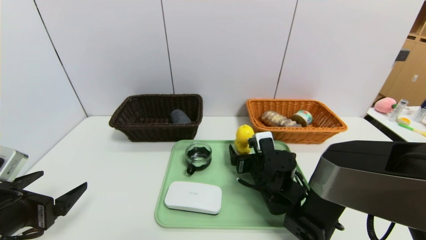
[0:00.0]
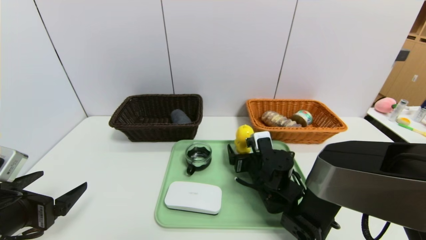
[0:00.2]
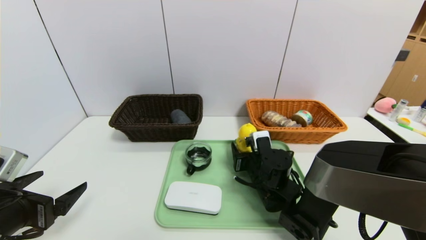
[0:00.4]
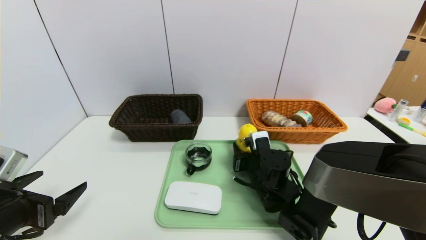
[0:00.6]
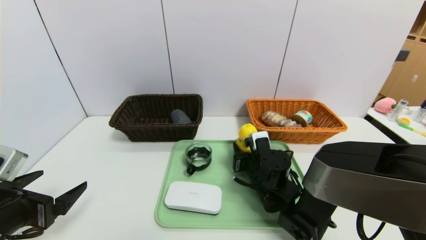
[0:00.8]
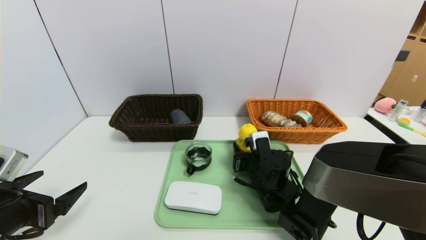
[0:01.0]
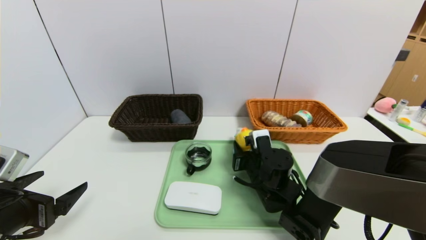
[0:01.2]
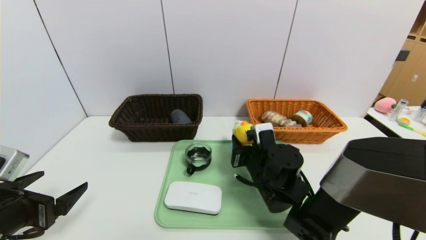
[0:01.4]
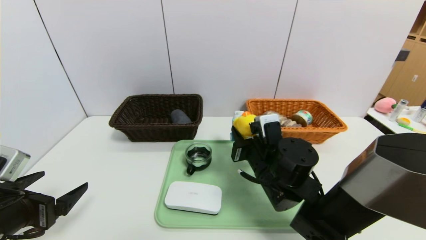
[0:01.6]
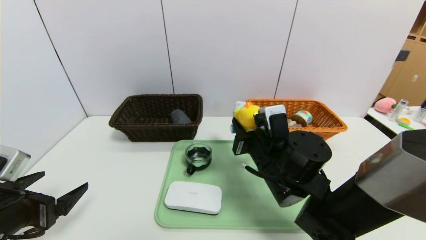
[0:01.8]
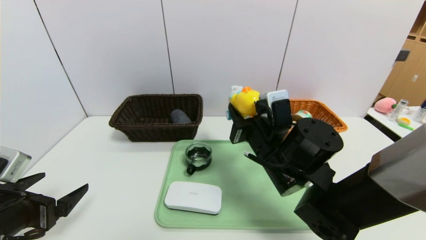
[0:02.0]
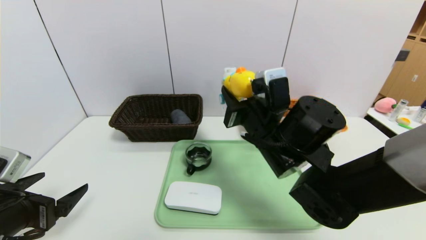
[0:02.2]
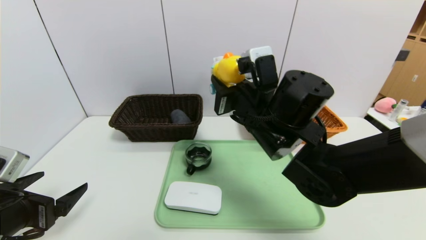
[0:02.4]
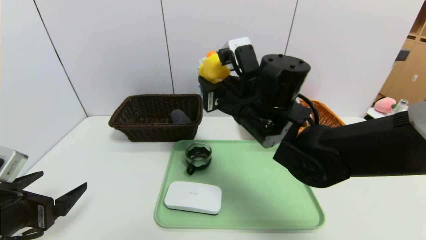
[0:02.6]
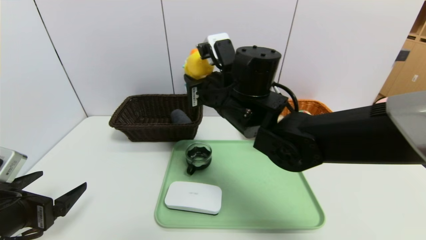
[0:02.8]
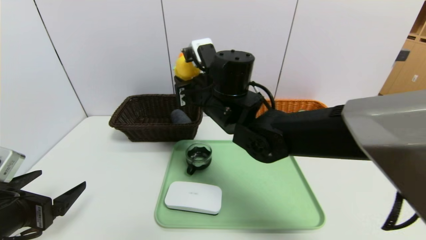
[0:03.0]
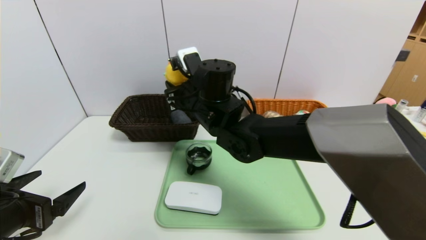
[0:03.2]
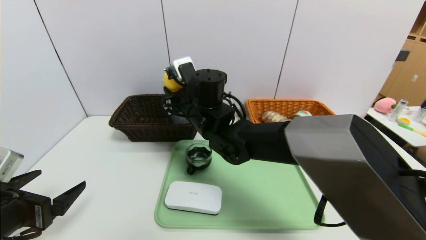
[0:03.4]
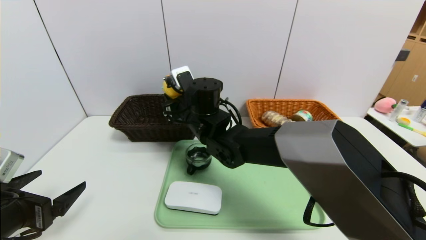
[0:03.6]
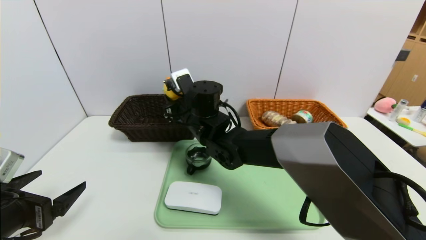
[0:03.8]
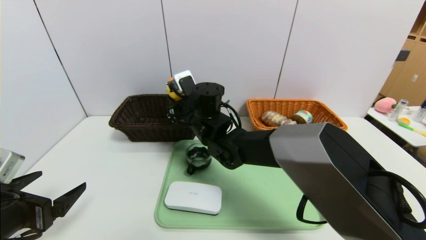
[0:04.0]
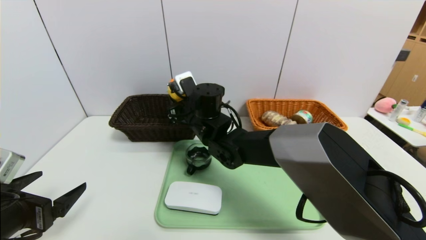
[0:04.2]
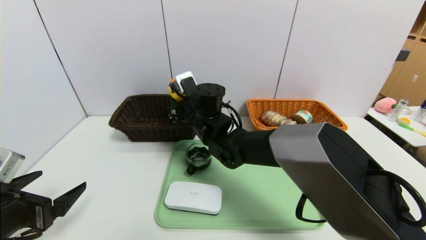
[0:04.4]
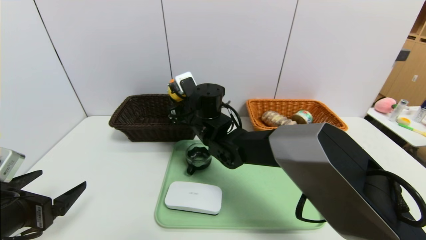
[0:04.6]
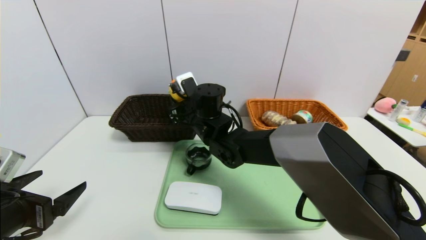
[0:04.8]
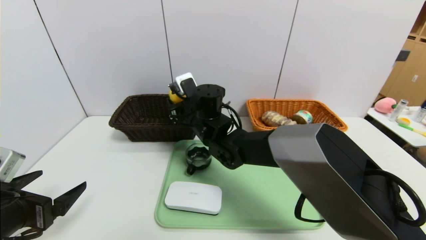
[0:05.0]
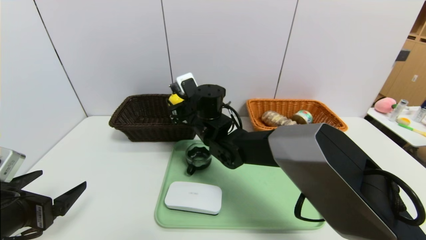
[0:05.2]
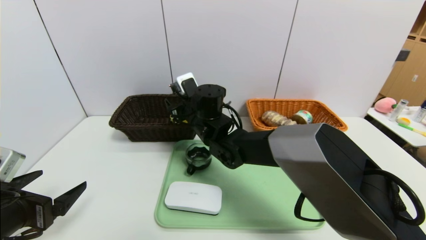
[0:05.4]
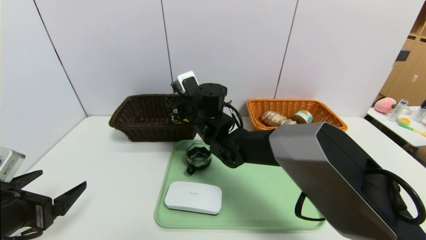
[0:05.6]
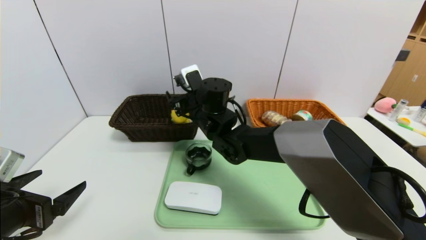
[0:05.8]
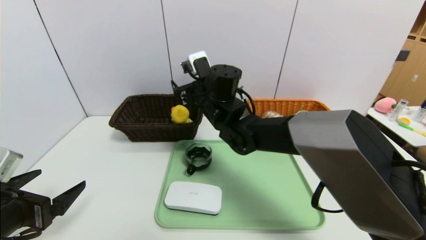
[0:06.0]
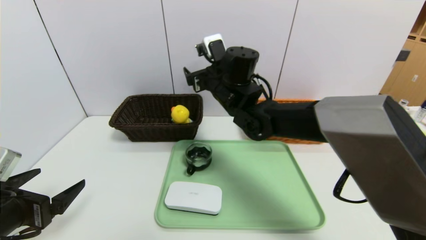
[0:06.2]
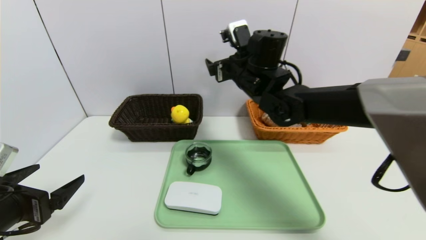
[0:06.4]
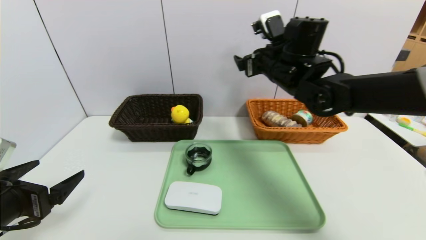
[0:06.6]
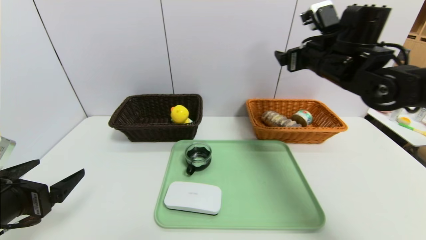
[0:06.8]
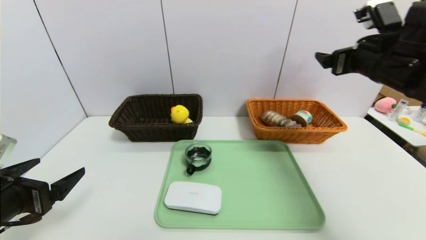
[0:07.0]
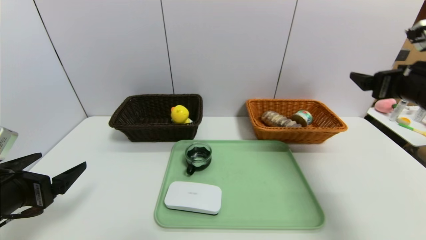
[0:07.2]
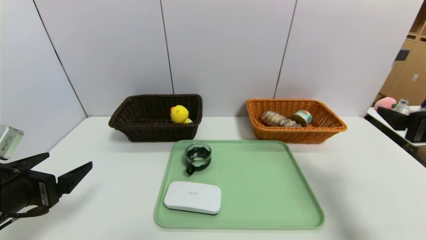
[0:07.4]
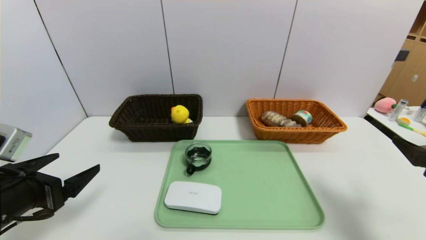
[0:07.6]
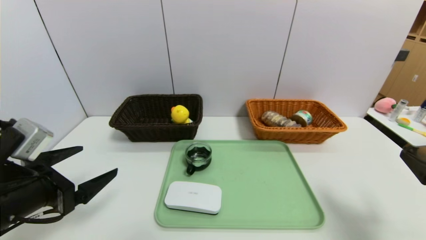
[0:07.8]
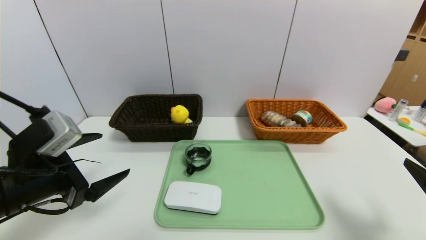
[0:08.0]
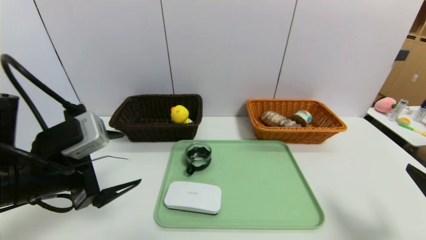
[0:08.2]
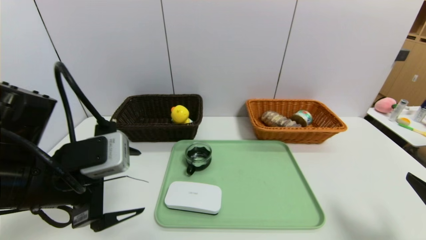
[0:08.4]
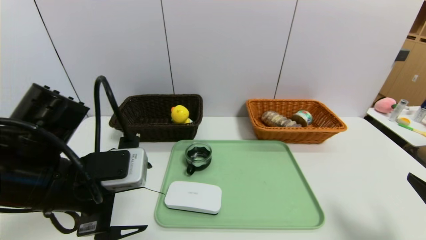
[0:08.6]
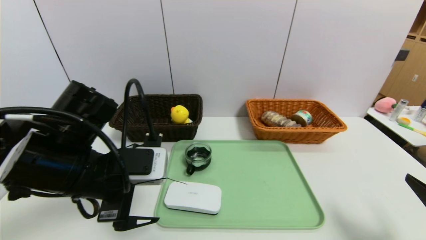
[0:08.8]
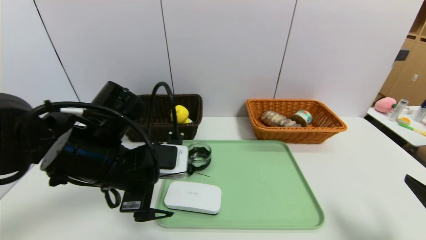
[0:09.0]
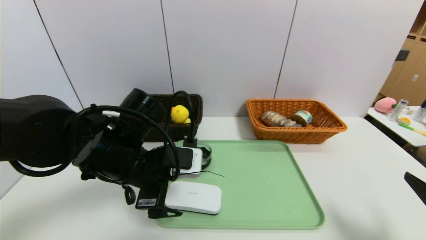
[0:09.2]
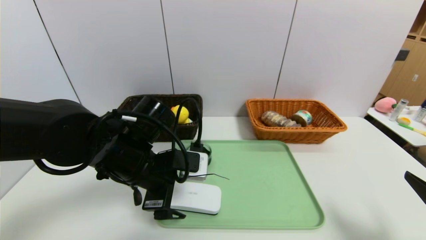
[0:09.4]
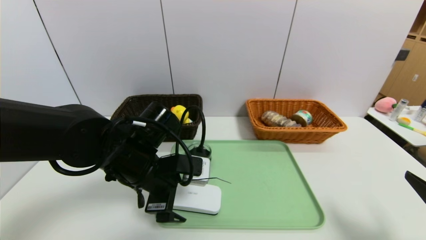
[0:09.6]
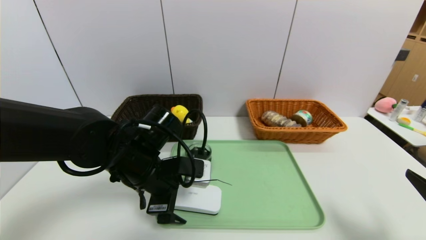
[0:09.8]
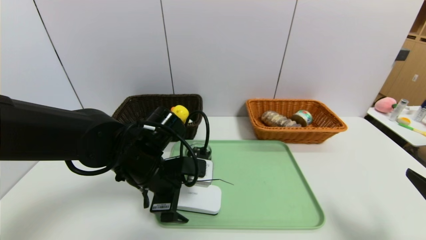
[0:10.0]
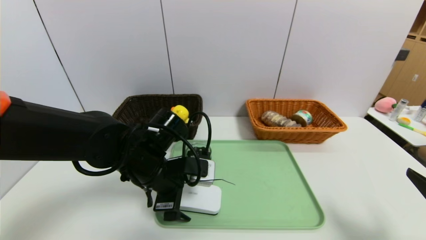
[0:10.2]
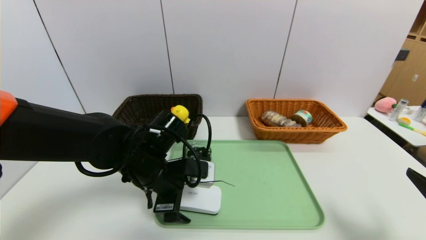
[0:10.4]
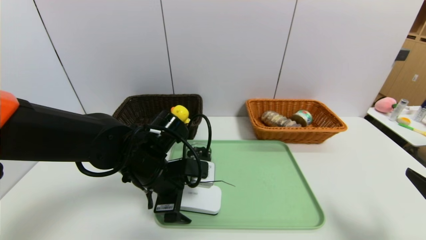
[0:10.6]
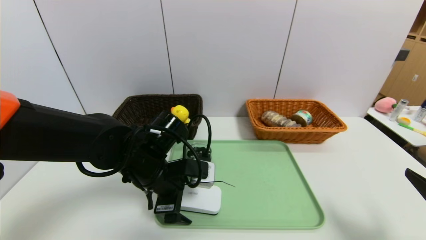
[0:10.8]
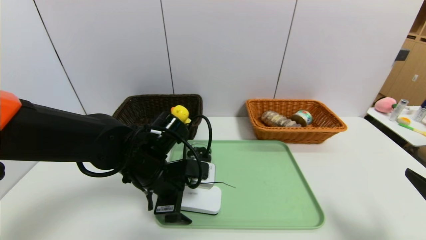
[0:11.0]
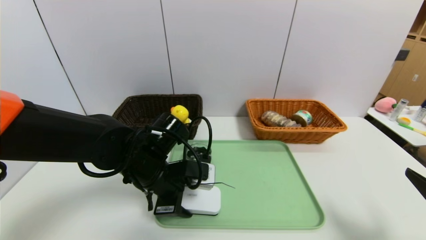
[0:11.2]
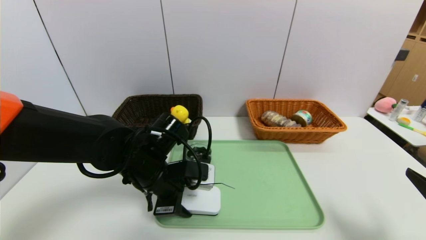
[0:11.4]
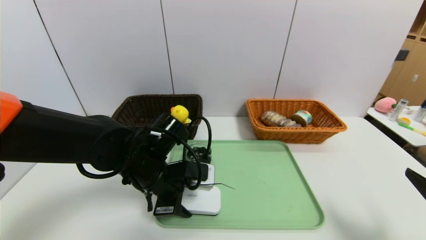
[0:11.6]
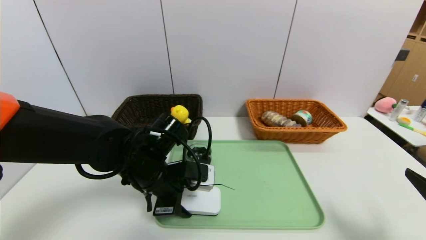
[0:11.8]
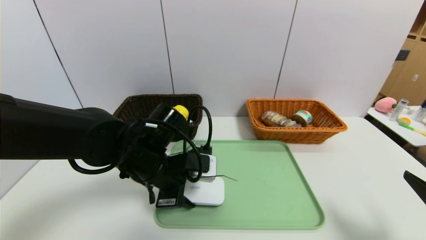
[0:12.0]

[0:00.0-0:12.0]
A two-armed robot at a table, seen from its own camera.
Task of the whole recording: place the food in the right basket with the right gripper, and place the non food items in the left basket with the left gripper.
0.0 to 1.6 s: The right gripper travels upward by approximately 5 cm, and closes its fingers.
1.6 to 3.0 s: The right gripper is displaced upward, to the left and forward by about 15 cm.
3.0 to 4.4 s: The right gripper shifts some 10 cm downward and forward.
4.4 to 6.0 s: The right gripper changes place by about 5 cm, and opens.
6.0 to 7.6 s: The right gripper goes some 40 cm to the right and backward.
7.6 to 9.0 s: The left gripper moves to the right and forward, some 15 cm; the right gripper is displaced backward by roughly 5 cm.
9.0 to 10.4 s: The left gripper is displaced downward by some 5 cm.
10.4 to 12.0 s: The left gripper closes.

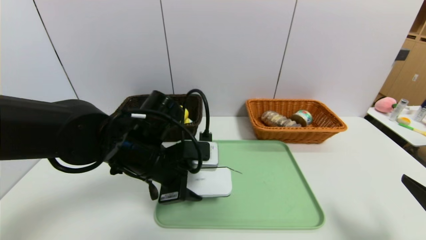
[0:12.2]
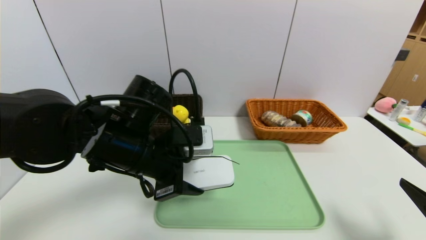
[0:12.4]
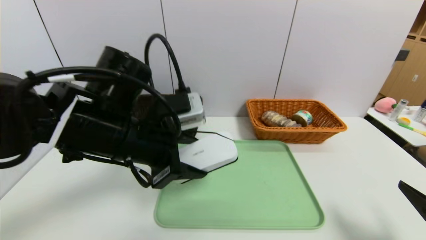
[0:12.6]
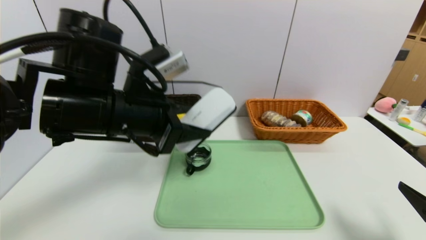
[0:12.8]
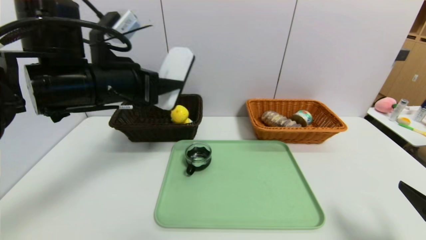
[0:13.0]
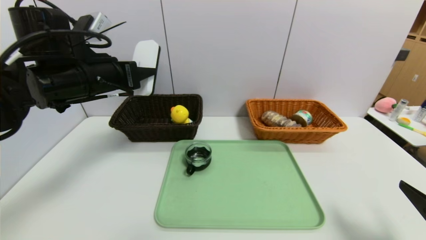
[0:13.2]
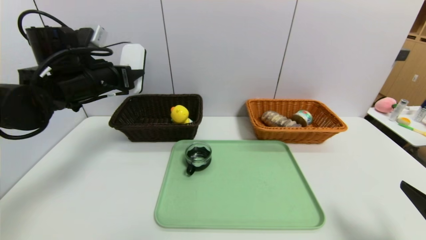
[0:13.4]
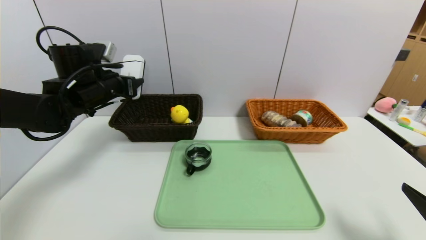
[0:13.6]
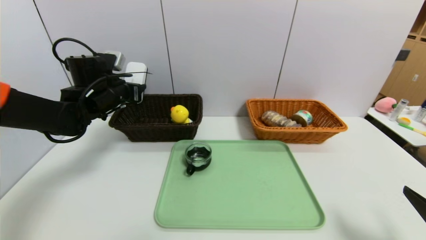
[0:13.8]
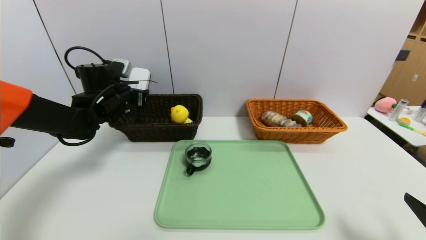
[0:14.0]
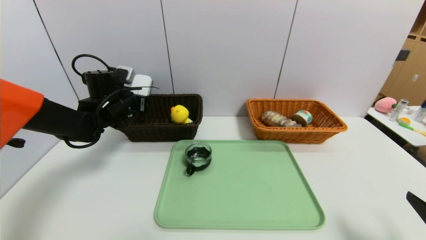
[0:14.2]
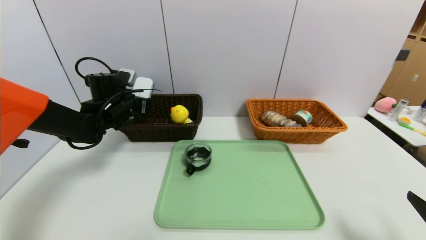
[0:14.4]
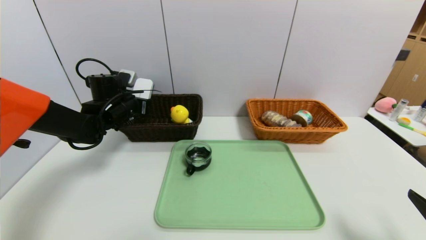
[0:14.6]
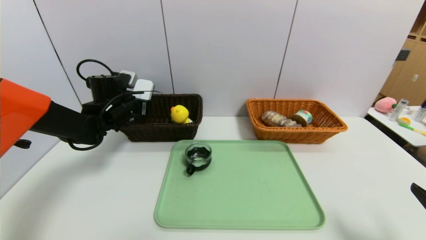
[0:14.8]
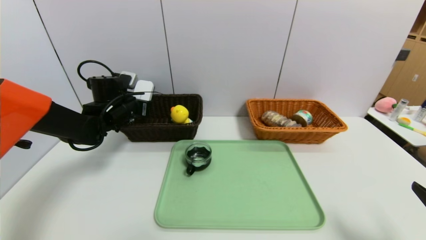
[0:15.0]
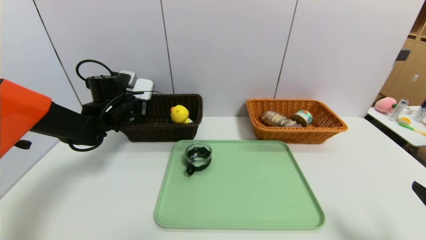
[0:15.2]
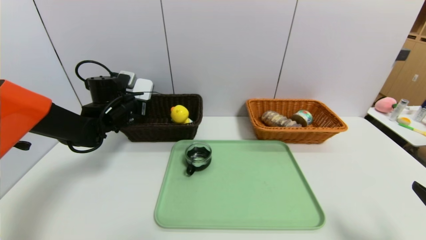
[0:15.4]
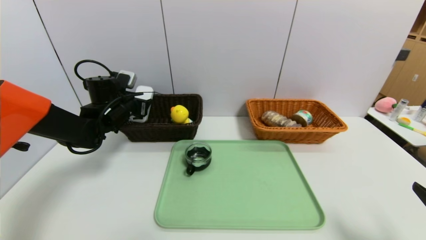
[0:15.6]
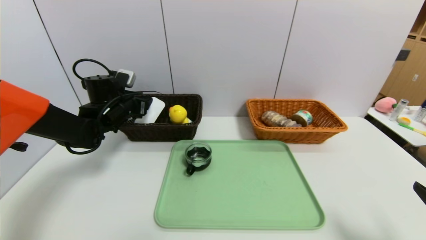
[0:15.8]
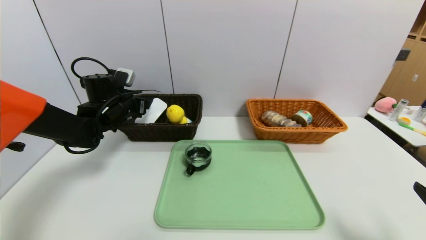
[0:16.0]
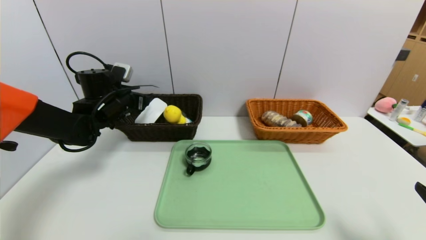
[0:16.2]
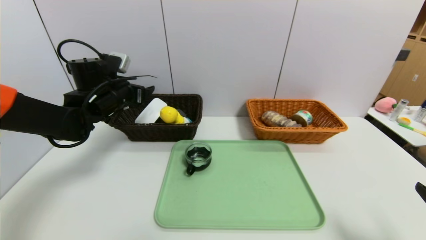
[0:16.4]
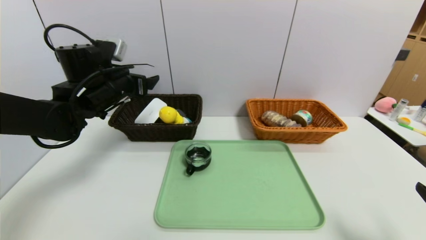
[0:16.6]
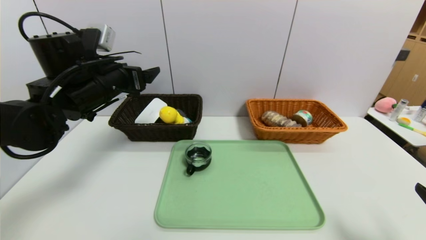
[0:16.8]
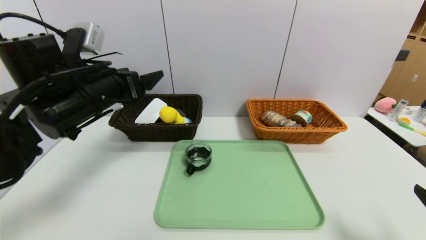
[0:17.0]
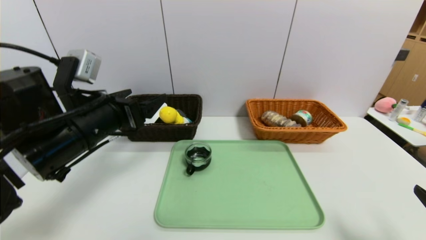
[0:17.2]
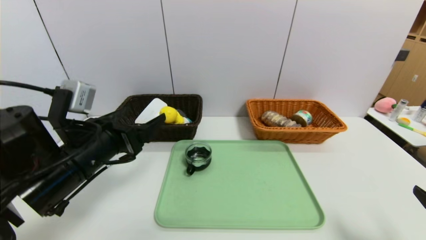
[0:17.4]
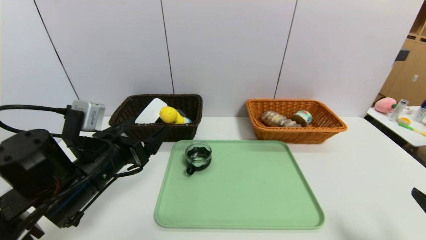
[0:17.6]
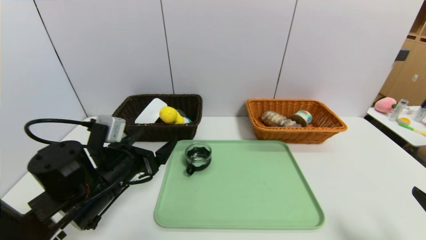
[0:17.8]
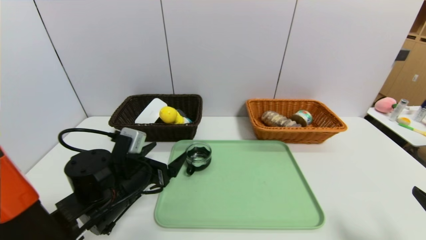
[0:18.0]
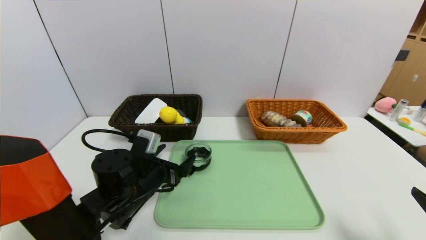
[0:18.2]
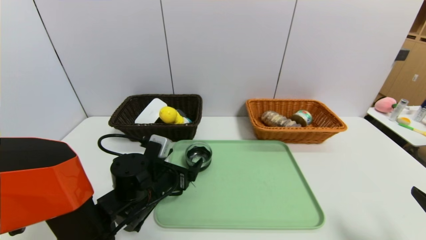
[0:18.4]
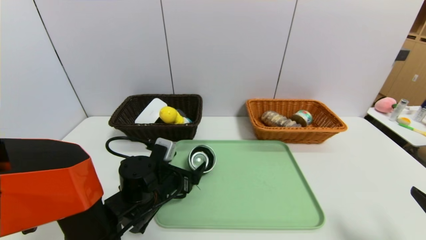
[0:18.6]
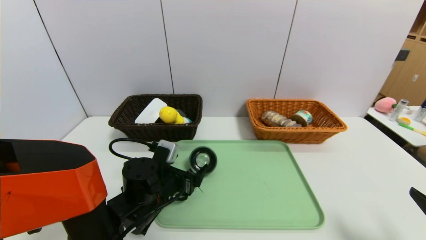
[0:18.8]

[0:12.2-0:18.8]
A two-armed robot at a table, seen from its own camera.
Task of the whole recording: place the food in the right basket with the right gripper, and place the non food items in the left basket with the left gripper.
Step, 12.2 to 16.0 s: Grasp the white eraser and put it in the left basket.
12.2 to 13.8 s: The left gripper goes about 20 cm forward and to the left.
13.8 to 15.4 s: The left gripper travels downward by roughly 5 cm.
15.4 to 17.2 s: The left gripper moves backward, roughly 20 cm, and opens up.
17.2 to 18.8 s: The left gripper moves downward and to the right, approximately 20 cm.
